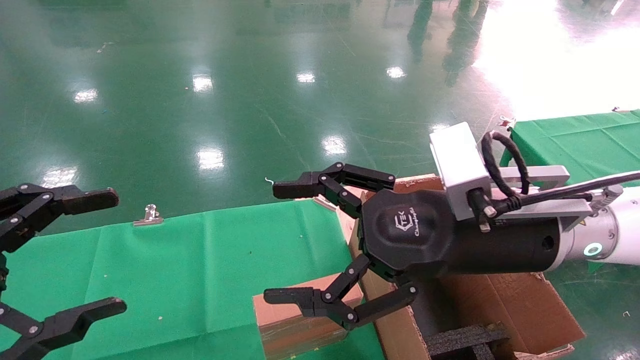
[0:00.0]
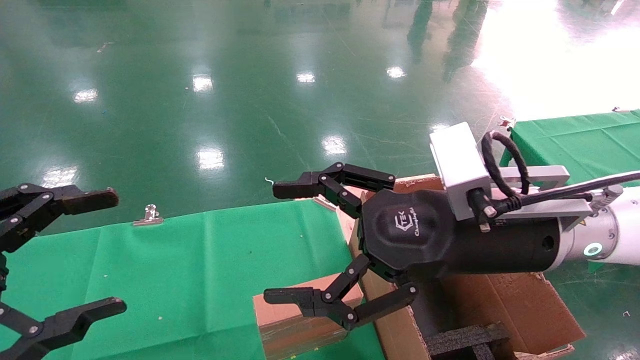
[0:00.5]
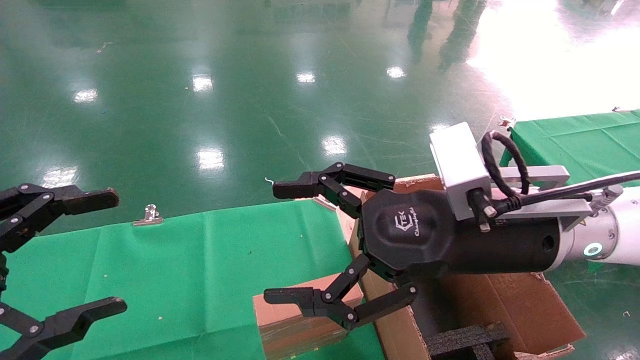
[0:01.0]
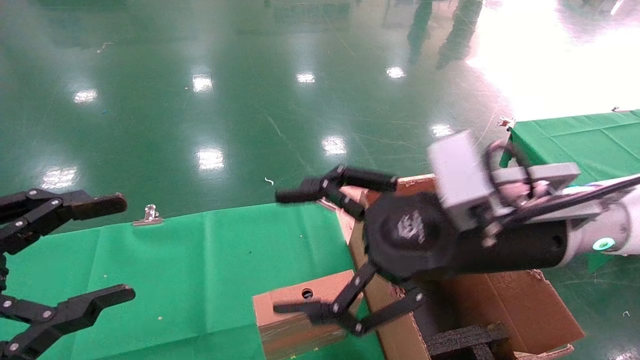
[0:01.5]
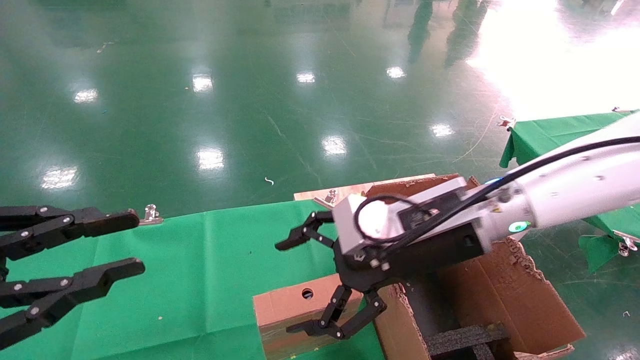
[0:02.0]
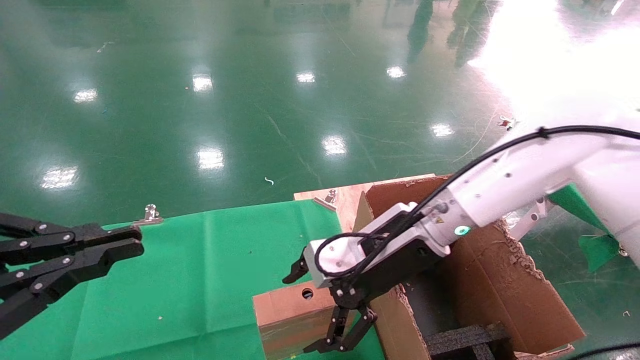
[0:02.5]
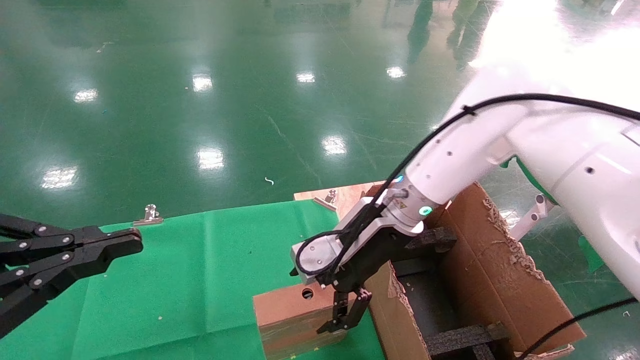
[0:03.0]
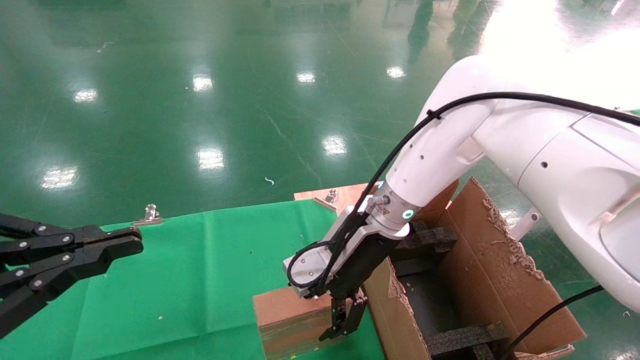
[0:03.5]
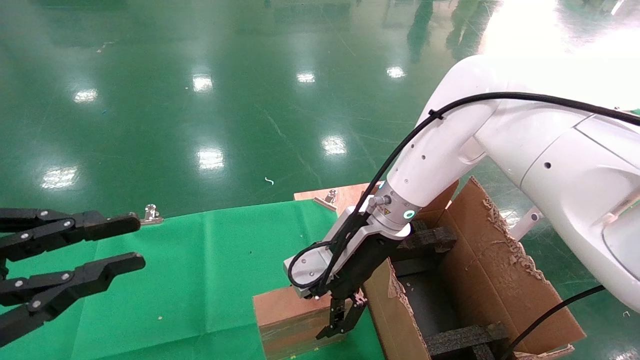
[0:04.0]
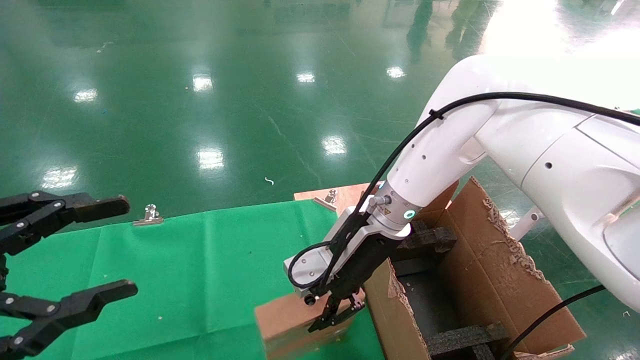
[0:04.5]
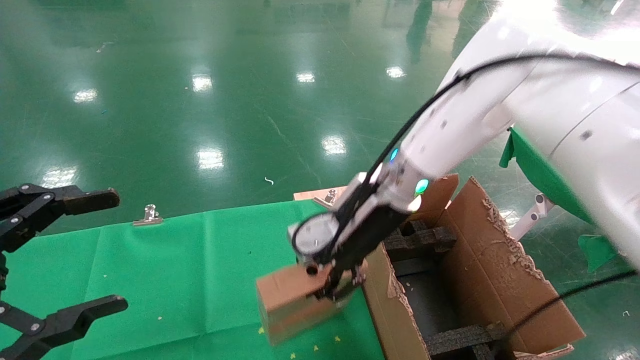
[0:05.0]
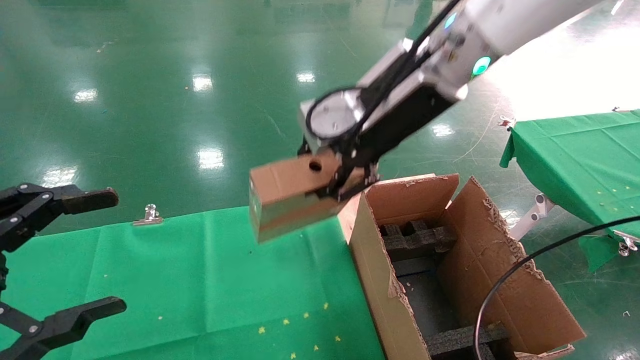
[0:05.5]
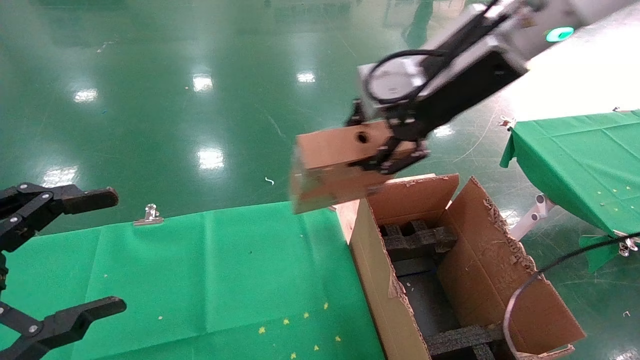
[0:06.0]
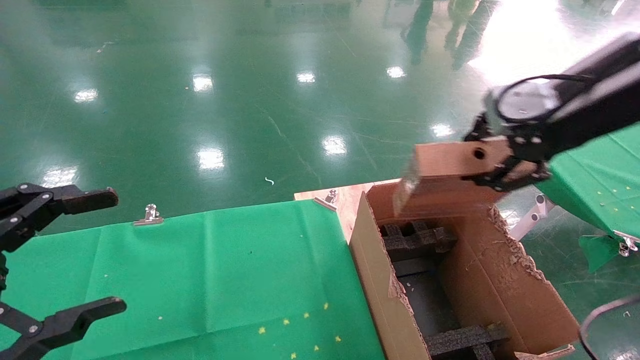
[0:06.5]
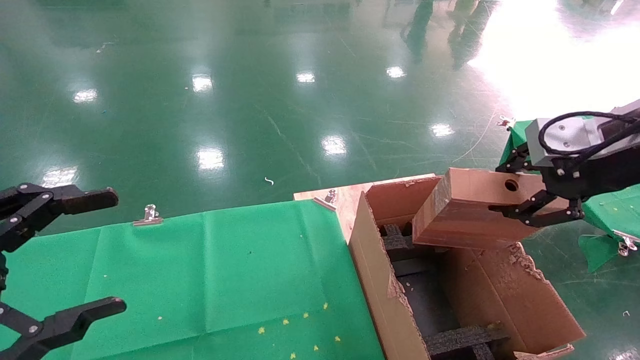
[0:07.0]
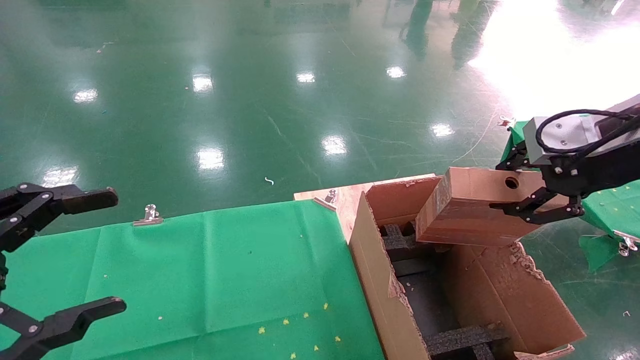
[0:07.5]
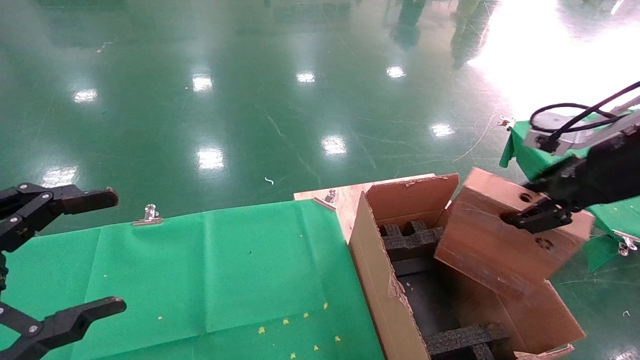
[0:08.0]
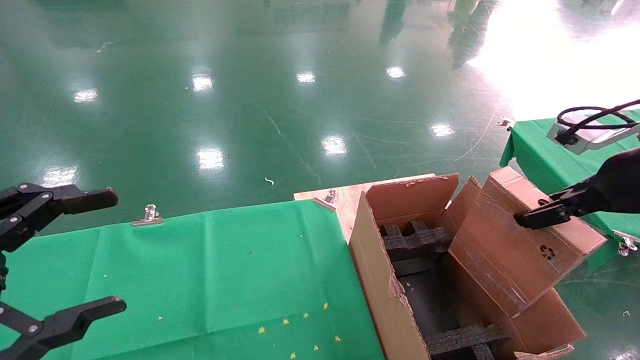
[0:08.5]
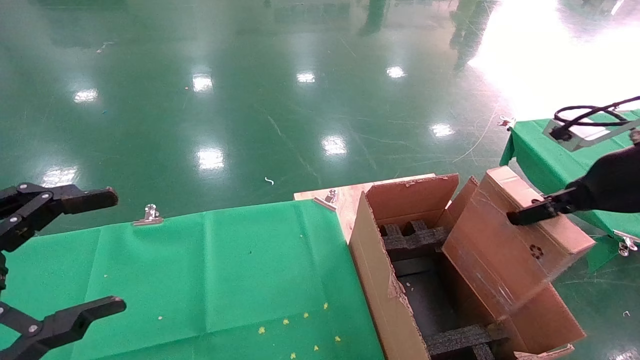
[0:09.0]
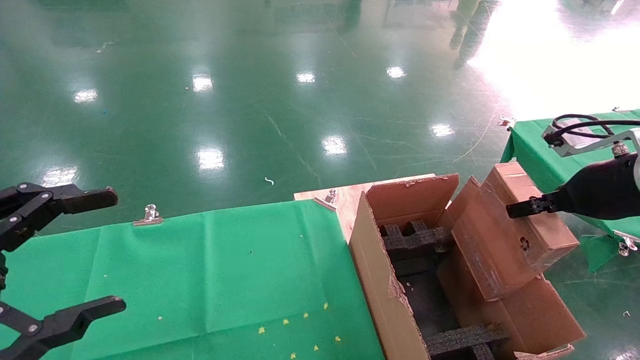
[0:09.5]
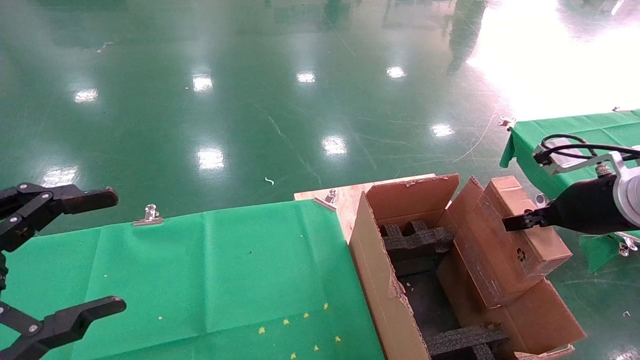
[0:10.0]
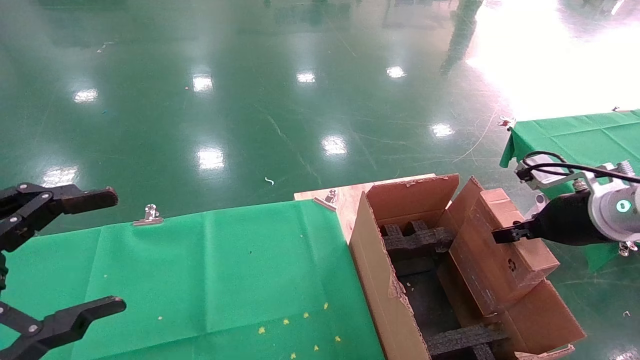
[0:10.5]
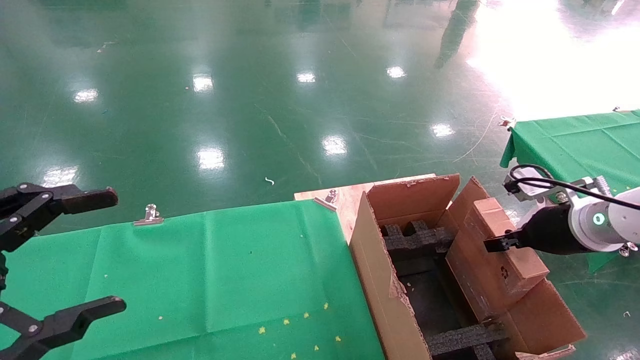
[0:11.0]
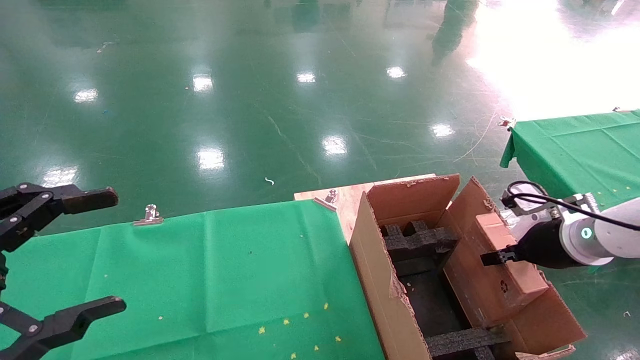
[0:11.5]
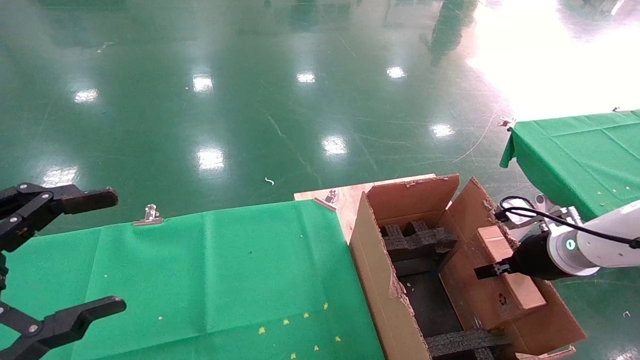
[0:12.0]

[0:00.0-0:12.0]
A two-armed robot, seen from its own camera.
Task of the whole recording: using a robotic arm to pick up a cardboard box and palace it the carton.
Step, 0:02.0 to 0:04.5: Pick up the mouse and the power cord paper box.
0:00.0 to 0:02.0: The left gripper closes up, while the right gripper goes some 5 cm forward.
0:02.0 to 0:04.0: The right gripper shifts roughly 10 cm forward and to the left.
0:04.0 to 0:06.0: The right gripper shifts roughly 25 cm upward and to the right, and closes its fingers, while the left gripper opens up.
0:06.0 to 0:08.0: The right gripper moves to the right and downward, roughly 20 cm.
0:08.0 to 0:10.0: The right gripper travels downward by some 10 cm.
0:10.0 to 0:12.0: The right gripper is displaced downward and forward by some 15 cm.

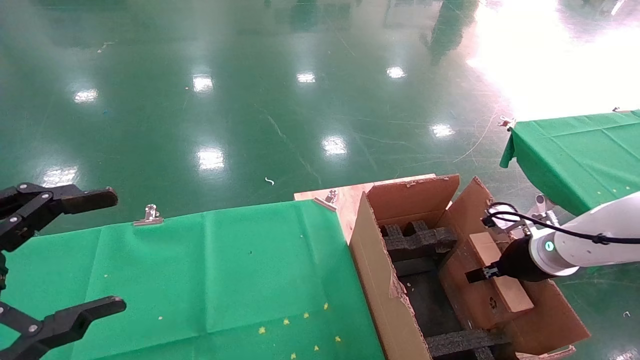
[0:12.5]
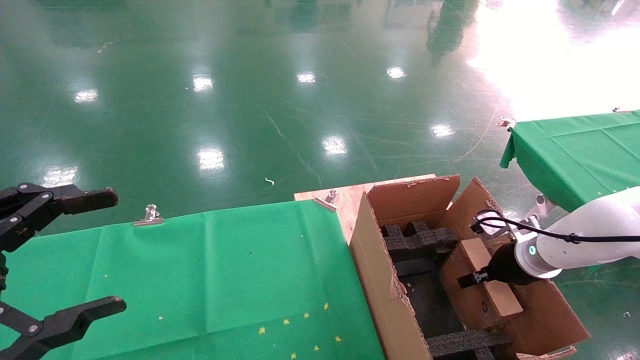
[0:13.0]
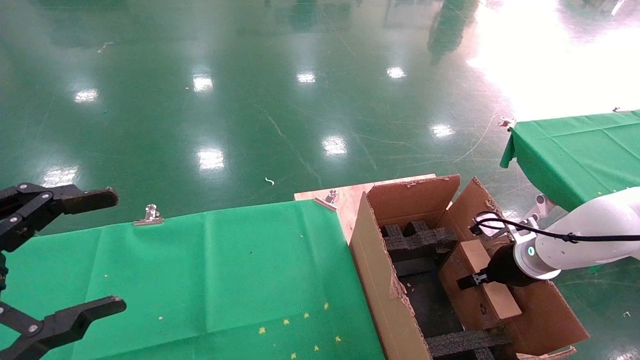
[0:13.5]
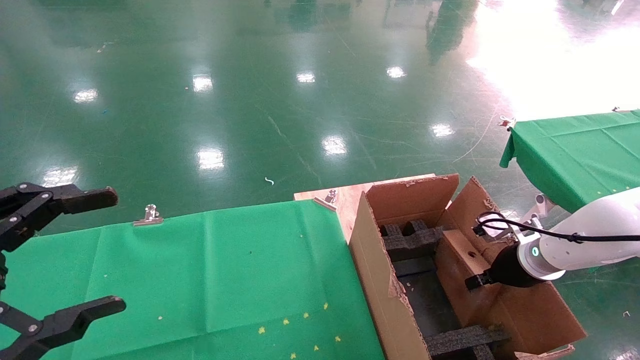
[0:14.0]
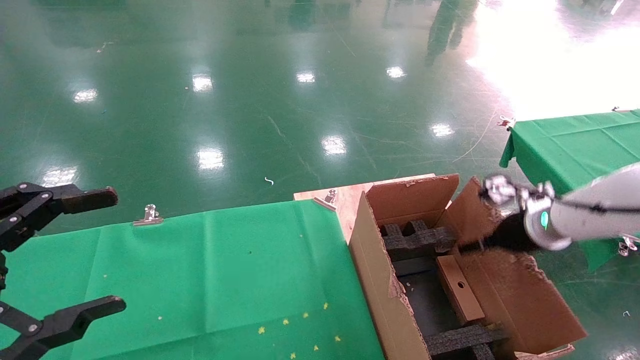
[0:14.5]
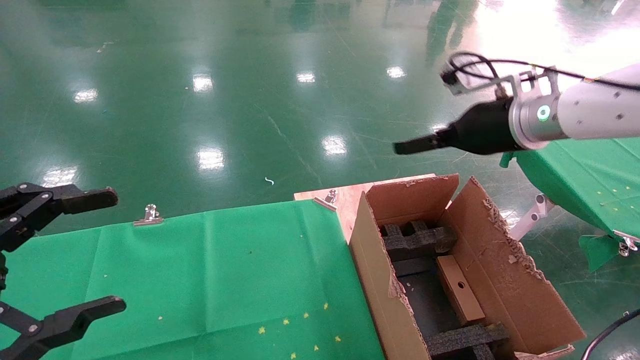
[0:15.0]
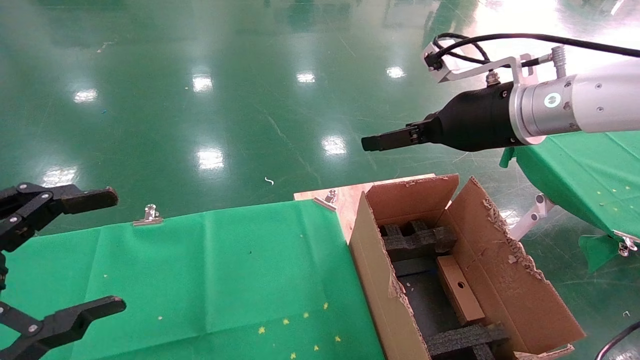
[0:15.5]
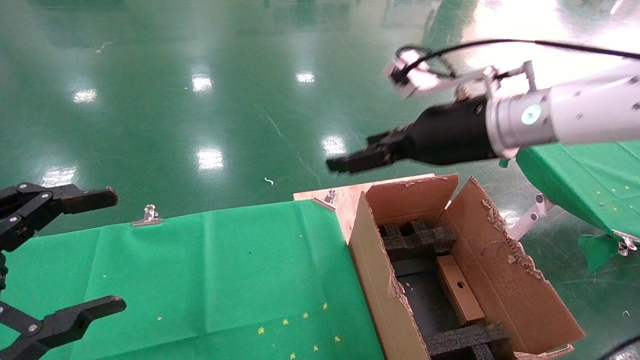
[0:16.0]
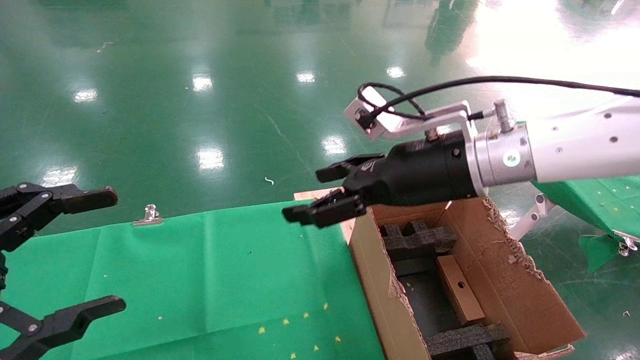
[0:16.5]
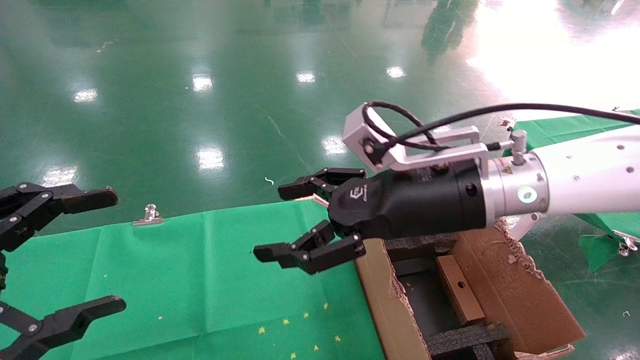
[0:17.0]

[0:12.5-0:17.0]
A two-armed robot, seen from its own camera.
Task of the whole recording: using a robotic arm to pick up a cardboard box and palace it the carton.
0:12.5 to 0:14.5: The right gripper goes approximately 5 cm upward, and opens up.
0:14.5 to 0:17.0: The right gripper heads to the left, backward and upward, covering some 25 cm.
